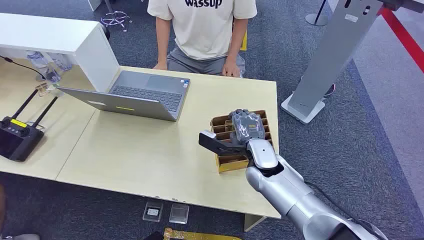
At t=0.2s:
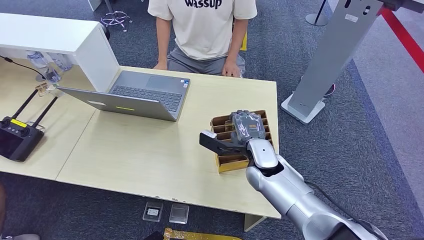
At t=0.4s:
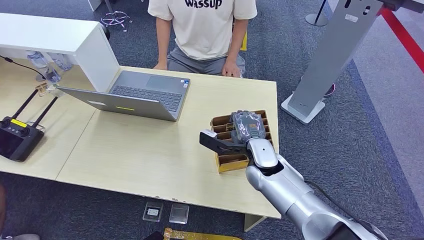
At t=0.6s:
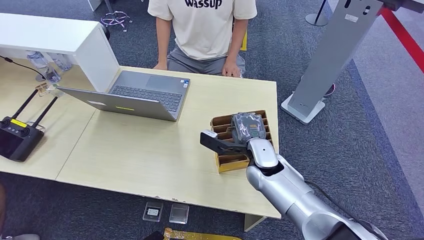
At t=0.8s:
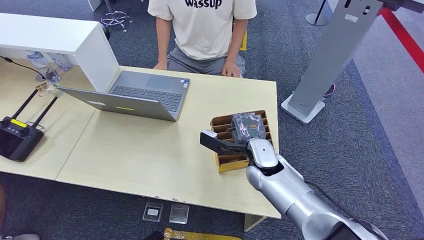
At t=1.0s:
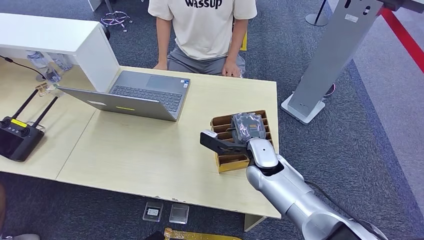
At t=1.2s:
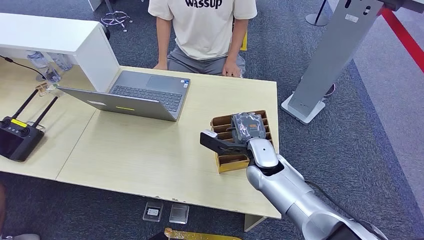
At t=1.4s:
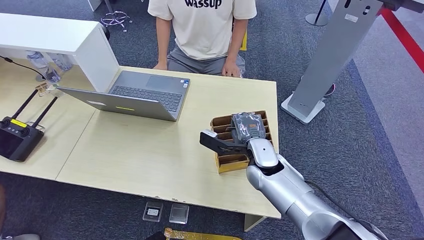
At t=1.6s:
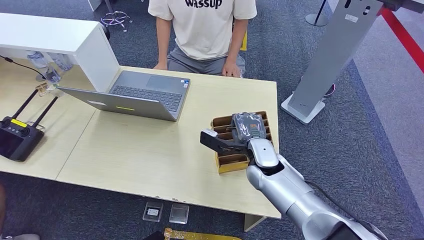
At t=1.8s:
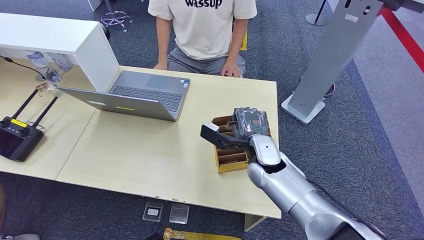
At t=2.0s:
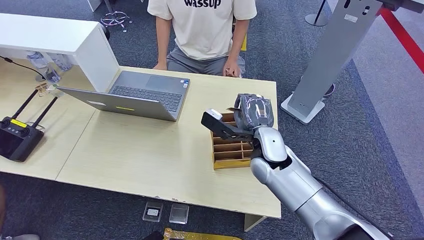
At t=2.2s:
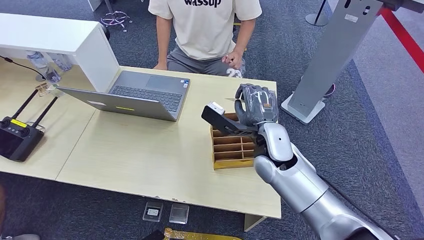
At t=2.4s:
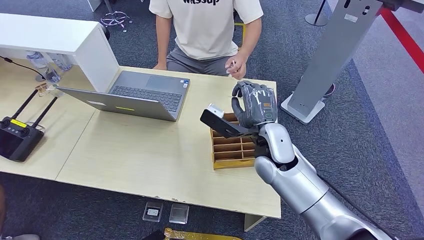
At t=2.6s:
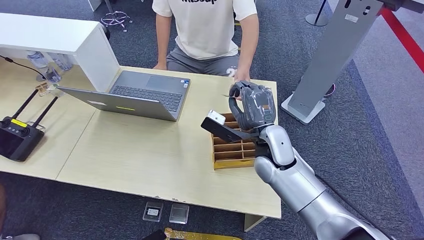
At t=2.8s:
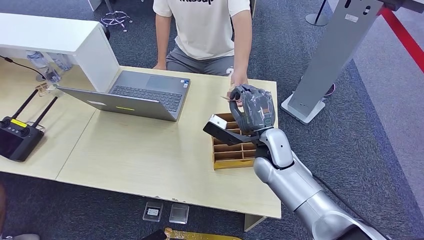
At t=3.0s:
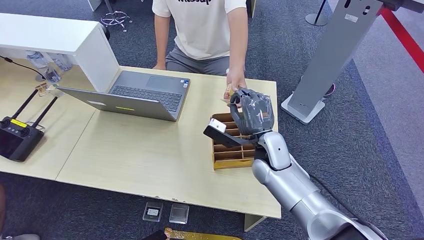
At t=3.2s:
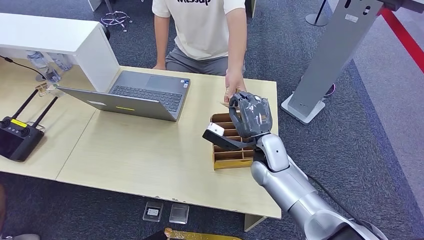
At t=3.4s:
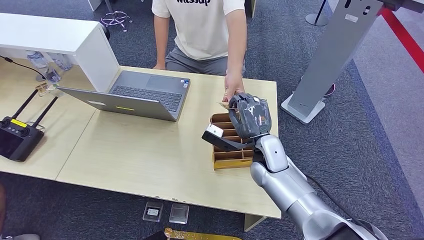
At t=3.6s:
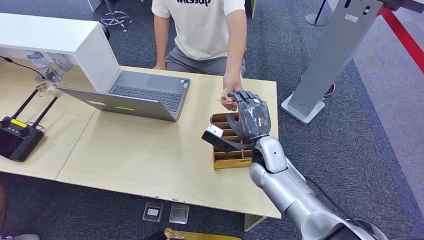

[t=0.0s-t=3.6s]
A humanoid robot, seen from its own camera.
Step, t=0.0s to t=1.8s: Pick up the room card from the card holder.
Step, t=2.4s to t=3.6s: Hand the room card to the target.
